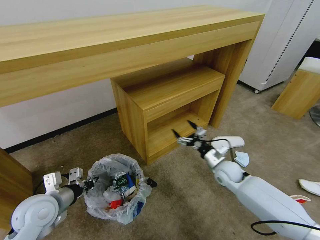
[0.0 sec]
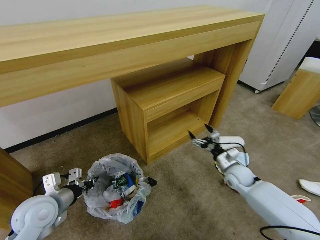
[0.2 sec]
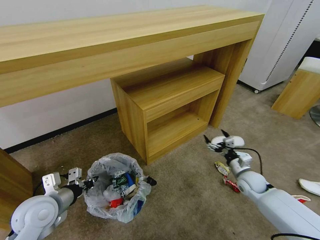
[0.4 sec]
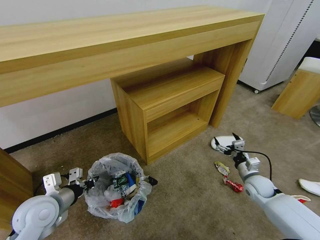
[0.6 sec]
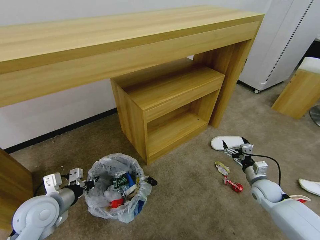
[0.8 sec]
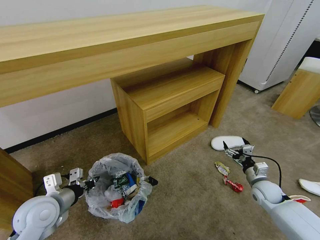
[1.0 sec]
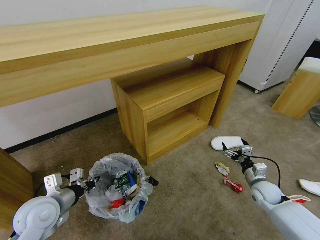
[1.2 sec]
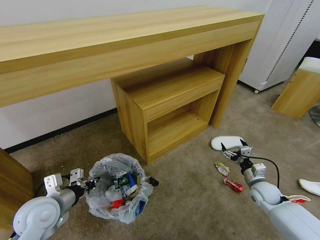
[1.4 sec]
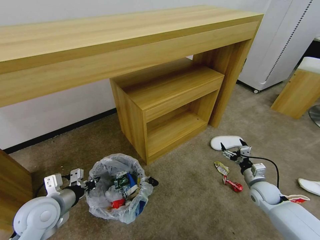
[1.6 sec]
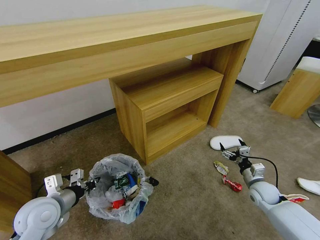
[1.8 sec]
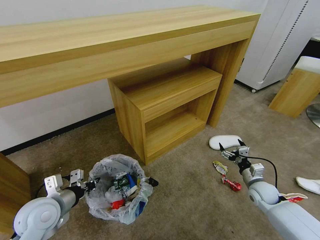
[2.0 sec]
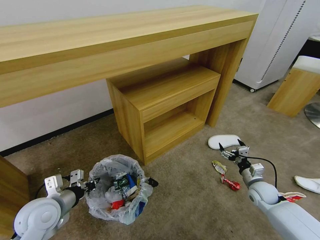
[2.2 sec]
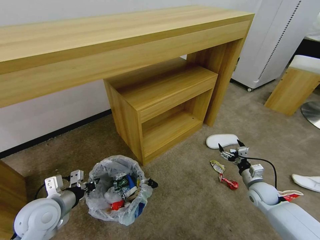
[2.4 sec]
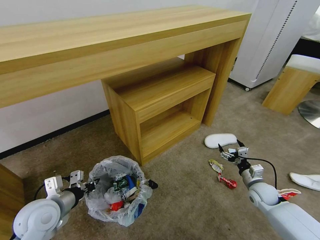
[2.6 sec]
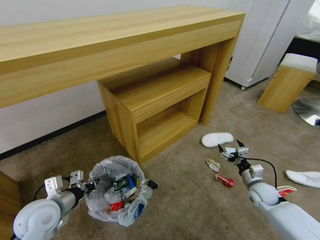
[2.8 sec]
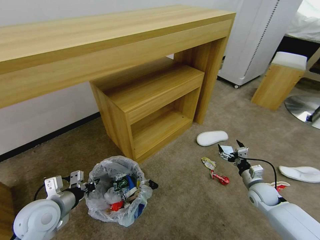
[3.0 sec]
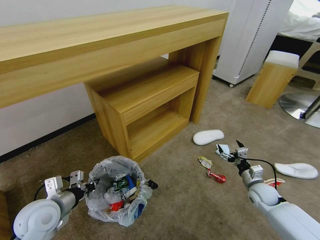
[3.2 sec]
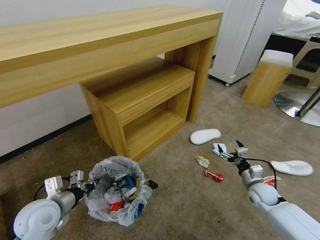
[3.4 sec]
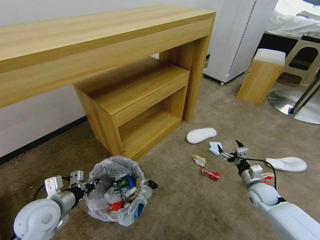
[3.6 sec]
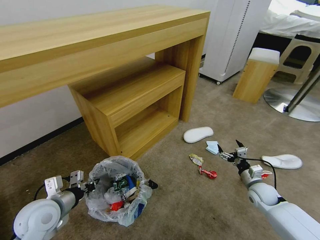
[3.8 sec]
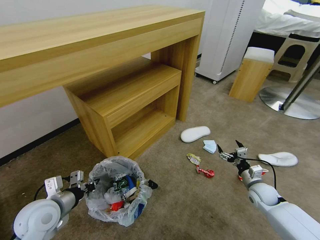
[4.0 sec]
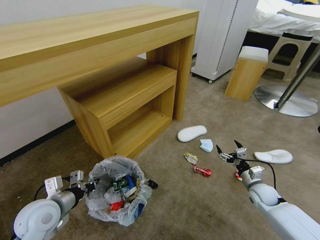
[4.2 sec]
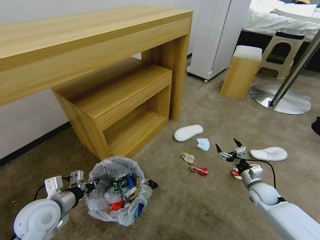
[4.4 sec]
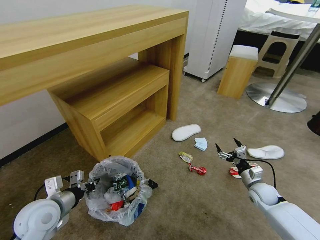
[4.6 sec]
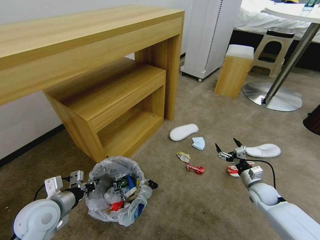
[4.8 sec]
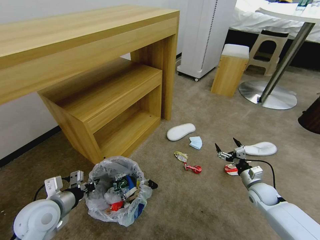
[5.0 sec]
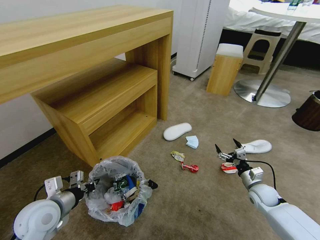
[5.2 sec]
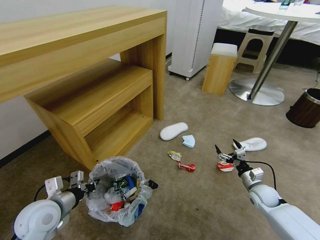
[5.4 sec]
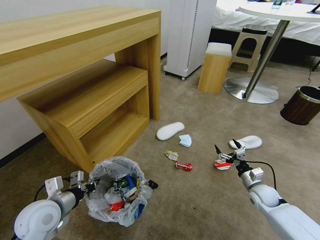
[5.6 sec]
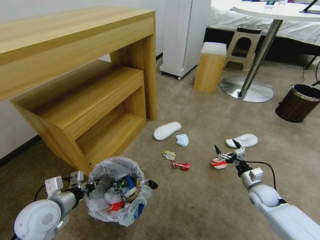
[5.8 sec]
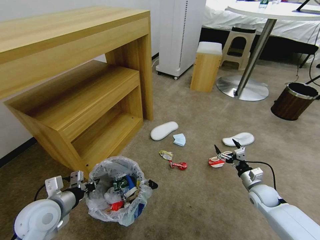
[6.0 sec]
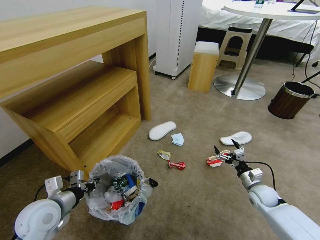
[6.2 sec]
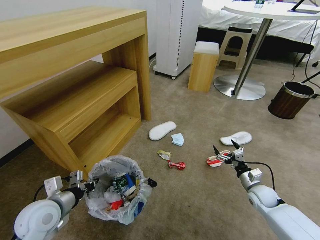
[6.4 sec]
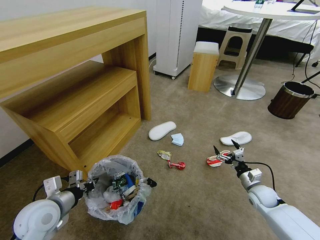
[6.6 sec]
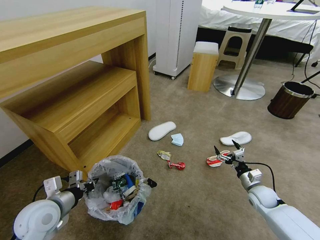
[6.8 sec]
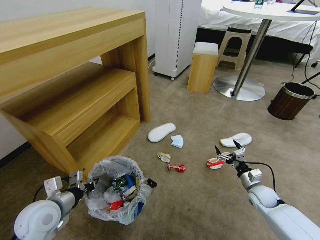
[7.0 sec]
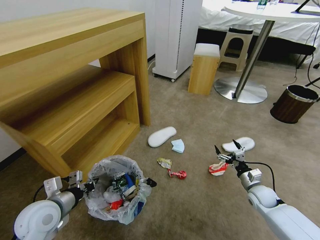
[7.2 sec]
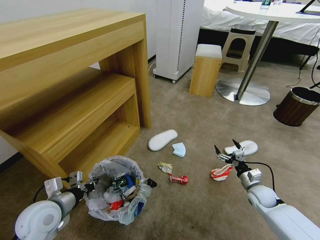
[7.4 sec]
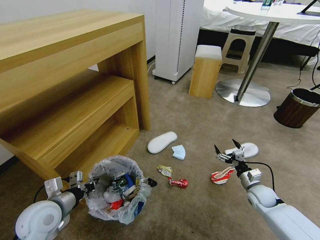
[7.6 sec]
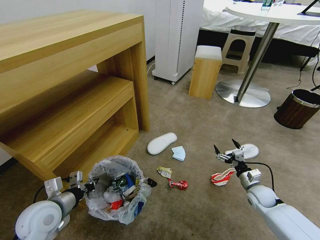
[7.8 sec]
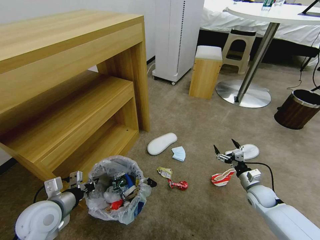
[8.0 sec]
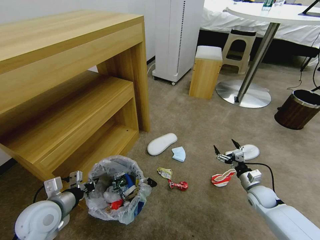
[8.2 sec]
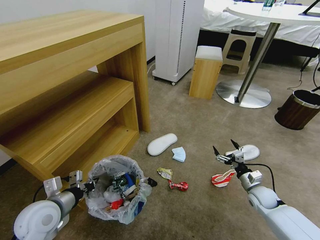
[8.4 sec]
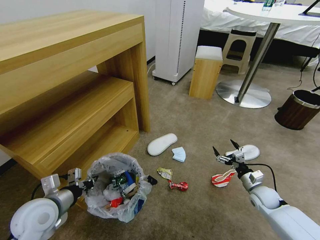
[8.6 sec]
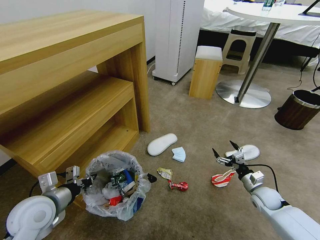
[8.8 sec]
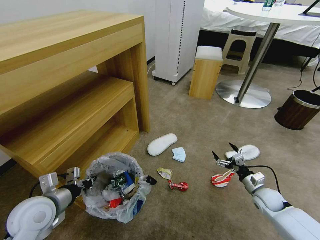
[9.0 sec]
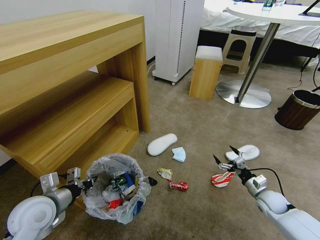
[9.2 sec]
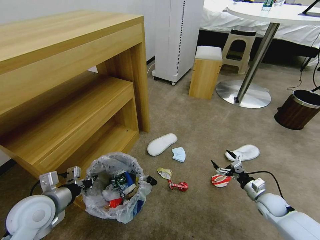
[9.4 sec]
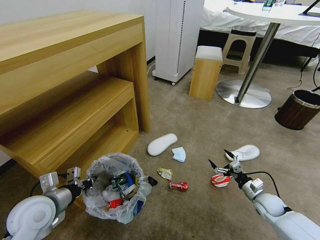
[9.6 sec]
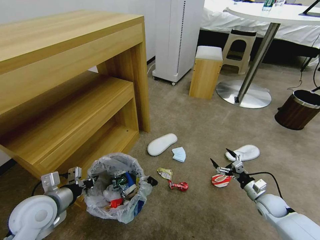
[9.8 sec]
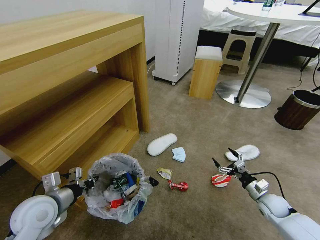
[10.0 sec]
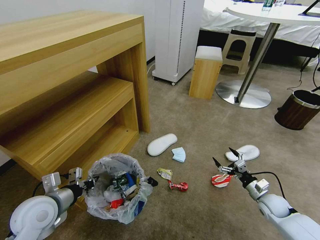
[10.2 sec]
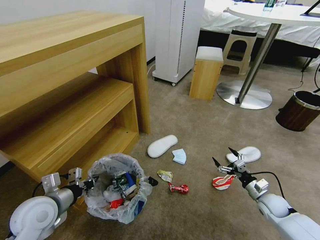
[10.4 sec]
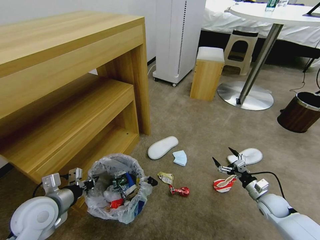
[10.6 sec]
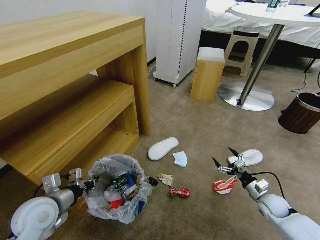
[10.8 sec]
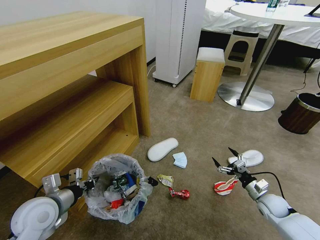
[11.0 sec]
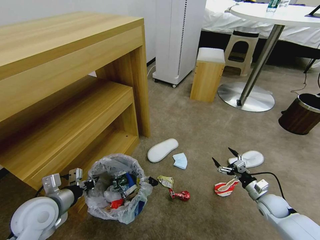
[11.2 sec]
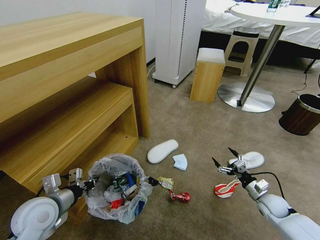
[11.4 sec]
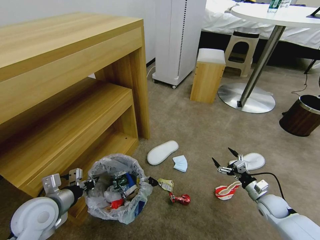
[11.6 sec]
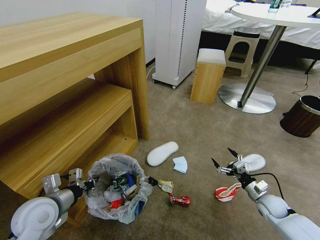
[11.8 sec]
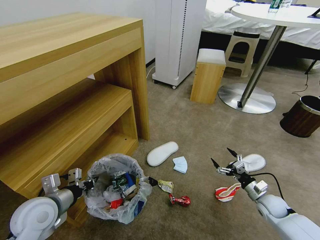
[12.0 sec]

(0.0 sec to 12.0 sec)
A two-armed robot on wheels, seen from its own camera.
Task of the whole recording: Pick up the trash bin and place the garbage on the floor into it.
0.0 sec - 1.6 sec: The right gripper goes some 15 cm to the right and backward.
7.6 sec - 10.4 sec: The grippers stay close to where they were, moving slightly.
10.4 sec - 12.0 sec: Neither gripper changes place.

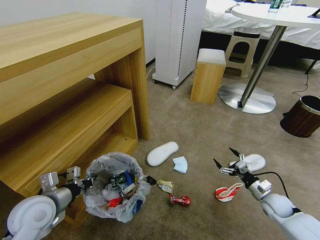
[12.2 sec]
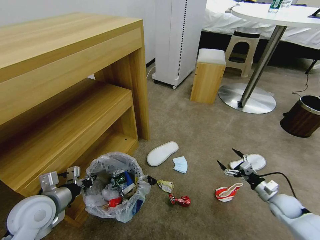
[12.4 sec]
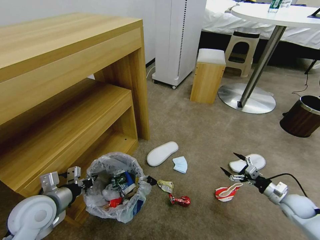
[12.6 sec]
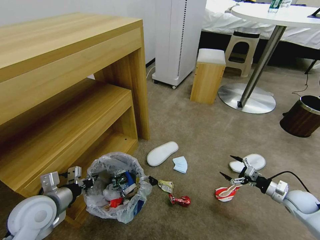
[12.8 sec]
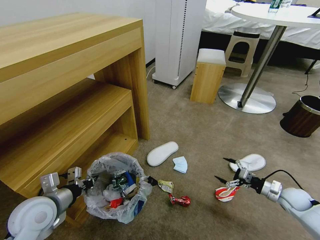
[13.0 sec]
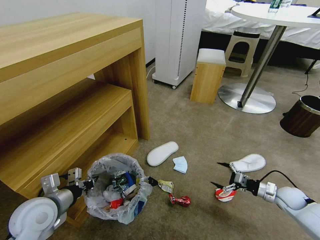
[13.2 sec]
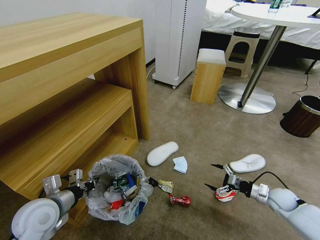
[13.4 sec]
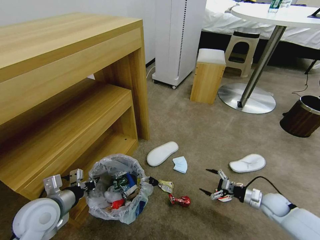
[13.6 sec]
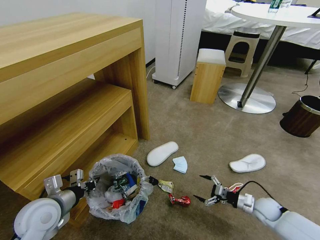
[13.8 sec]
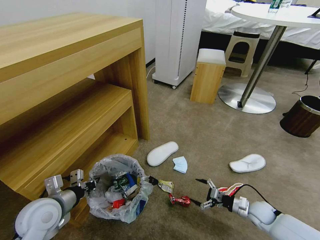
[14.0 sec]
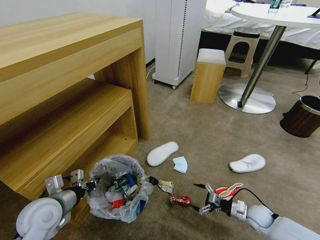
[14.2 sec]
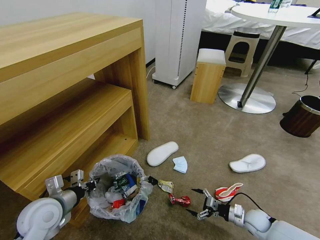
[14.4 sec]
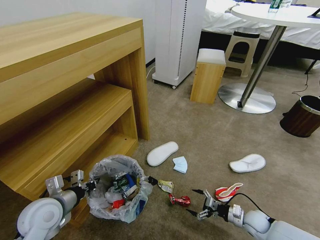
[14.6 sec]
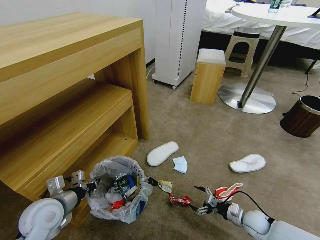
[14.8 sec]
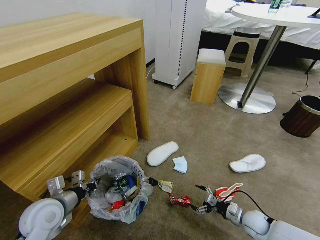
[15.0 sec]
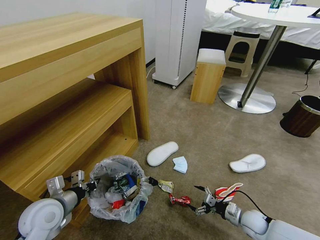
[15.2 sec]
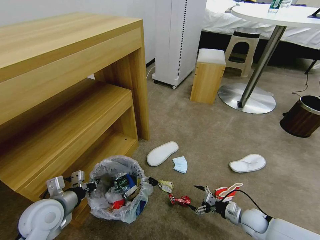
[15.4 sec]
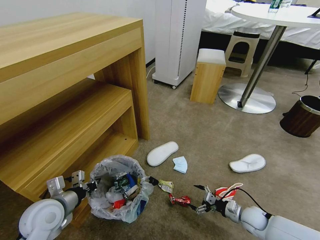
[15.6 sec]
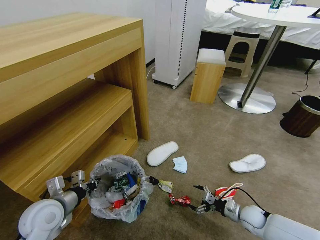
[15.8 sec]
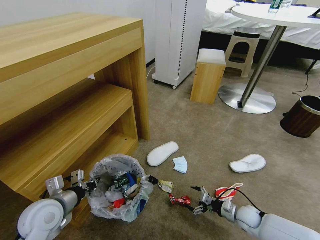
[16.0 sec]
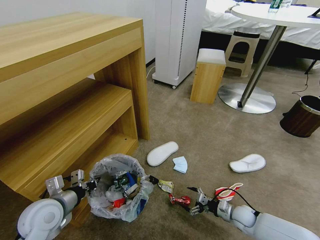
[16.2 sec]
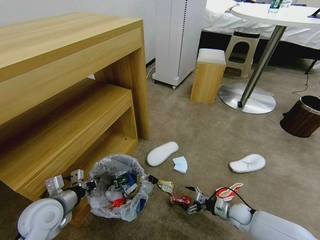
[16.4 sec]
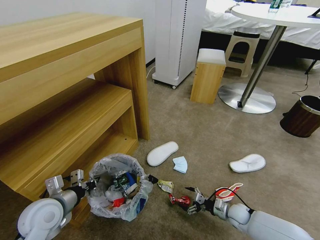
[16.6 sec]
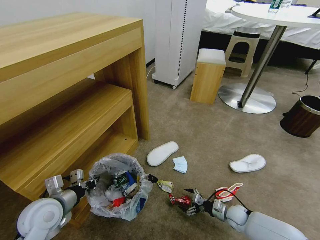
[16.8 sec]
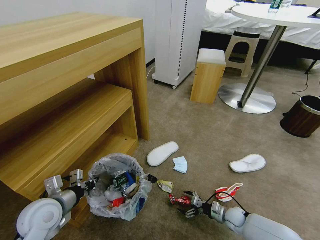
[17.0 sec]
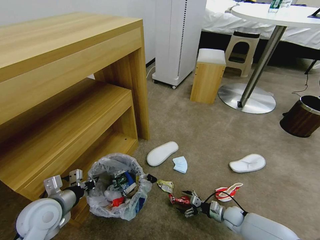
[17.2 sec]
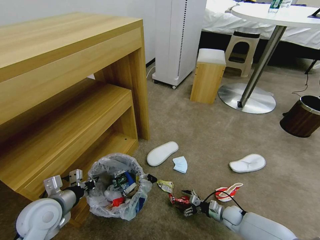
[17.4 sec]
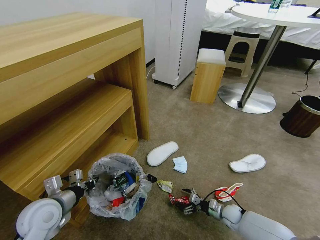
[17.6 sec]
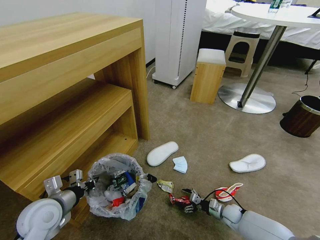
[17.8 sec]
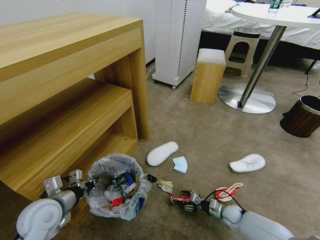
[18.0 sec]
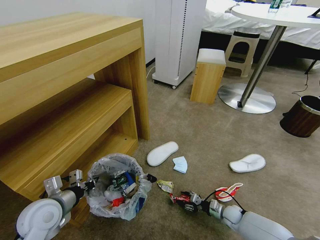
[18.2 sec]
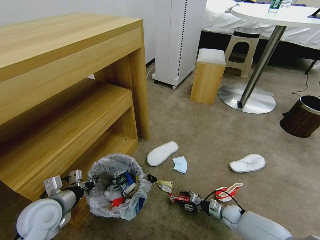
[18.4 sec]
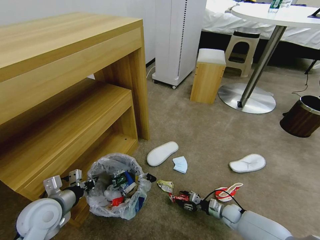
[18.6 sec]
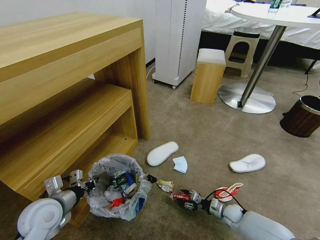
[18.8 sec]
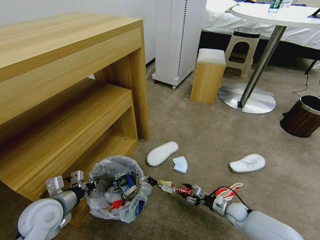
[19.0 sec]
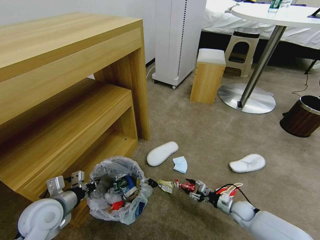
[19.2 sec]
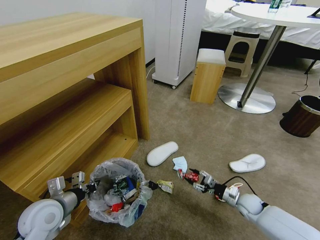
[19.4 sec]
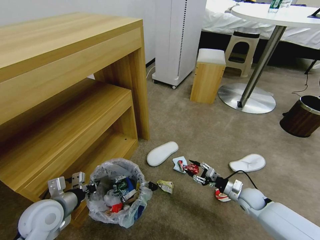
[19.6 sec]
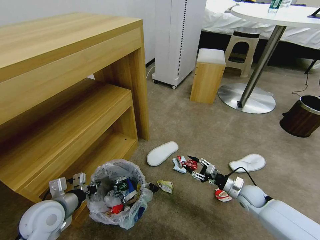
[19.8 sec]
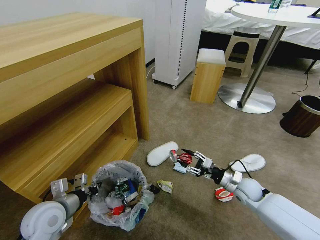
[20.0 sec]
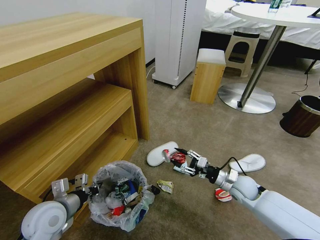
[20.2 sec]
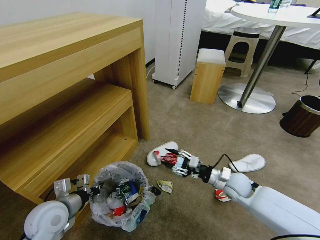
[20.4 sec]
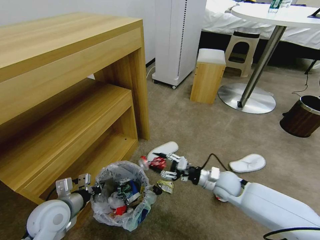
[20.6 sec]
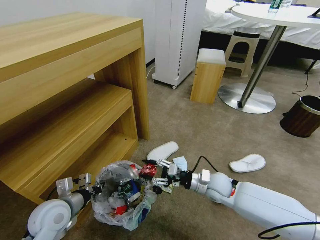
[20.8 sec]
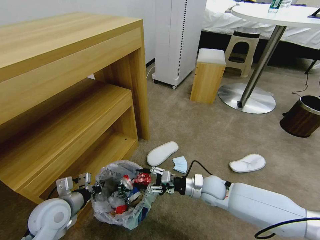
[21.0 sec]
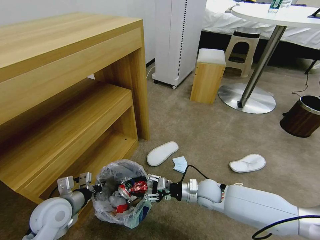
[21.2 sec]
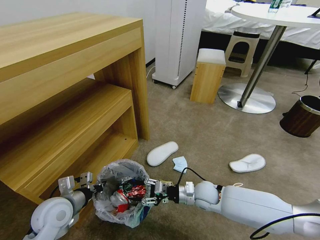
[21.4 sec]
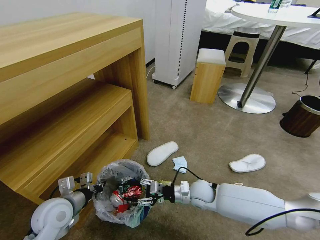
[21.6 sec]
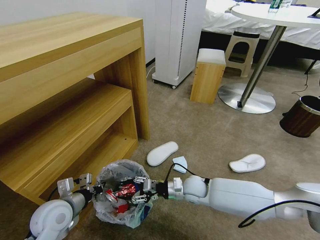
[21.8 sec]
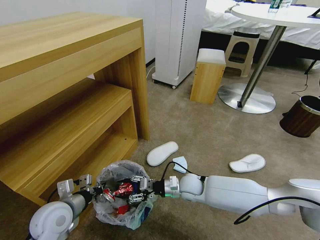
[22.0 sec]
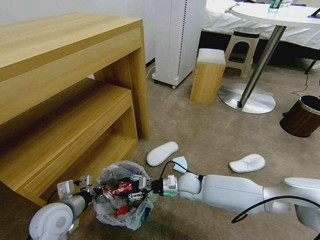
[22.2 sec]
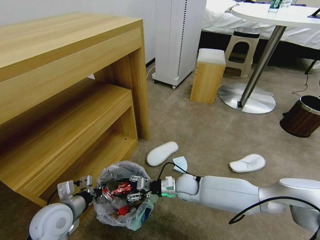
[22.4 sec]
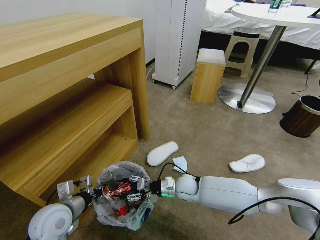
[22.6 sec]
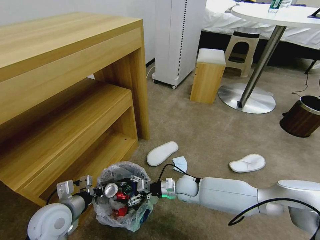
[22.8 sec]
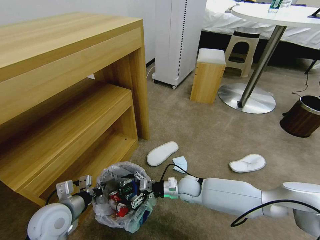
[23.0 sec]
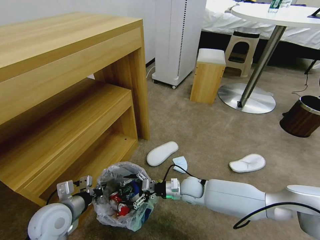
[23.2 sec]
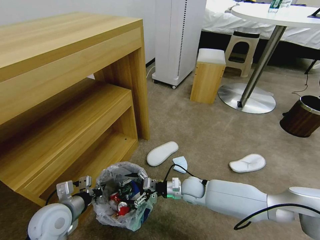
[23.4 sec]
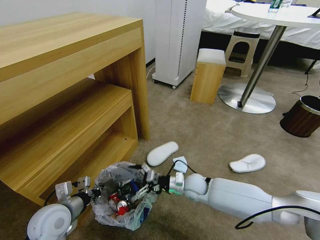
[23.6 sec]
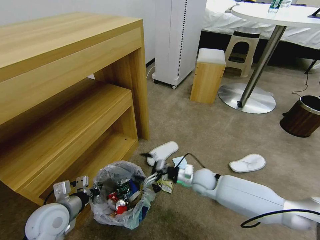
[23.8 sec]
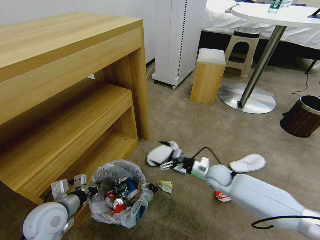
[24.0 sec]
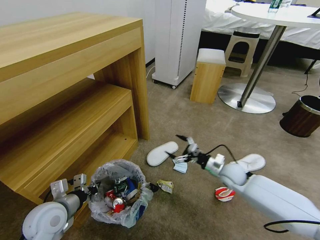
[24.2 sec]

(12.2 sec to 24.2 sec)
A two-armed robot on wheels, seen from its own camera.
Task of the whole recording: Pick up the trash bin and place the garbage on the floor into it.
12.2 sec - 13.8 sec: The right gripper travels to the right and back again, about 5 cm each way.
13.8 sec - 15.2 sec: The right gripper is displaced to the left by roughly 5 cm.
15.2 sec - 16.6 sec: The right gripper changes place by some 5 cm.
16.6 sec - 18.2 sec: The right gripper closes up.
18.2 sec - 19.8 sec: The right gripper goes about 15 cm upward.
19.8 sec - 21.2 sec: The right gripper moves to the left, approximately 20 cm.
21.2 sec - 22.6 sec: The right gripper moves to the left, roughly 5 cm.
22.6 sec - 24.2 sec: The right gripper travels to the right by roughly 15 cm, and opens its fingers.
